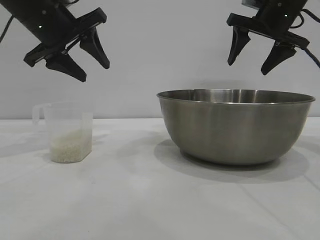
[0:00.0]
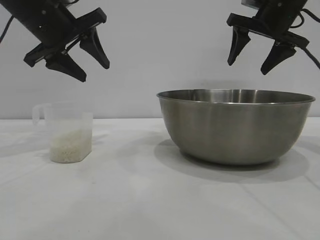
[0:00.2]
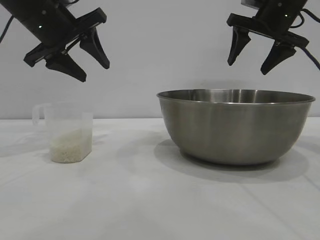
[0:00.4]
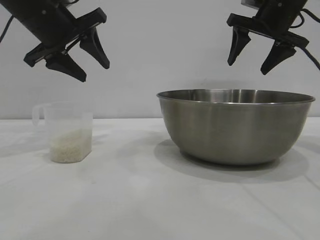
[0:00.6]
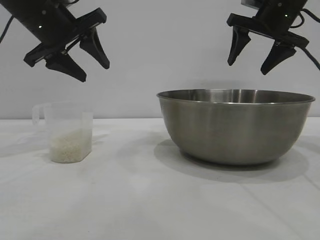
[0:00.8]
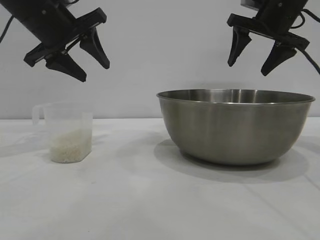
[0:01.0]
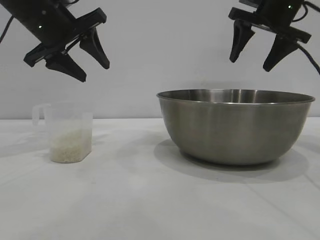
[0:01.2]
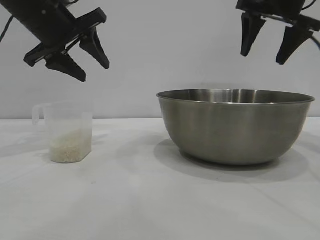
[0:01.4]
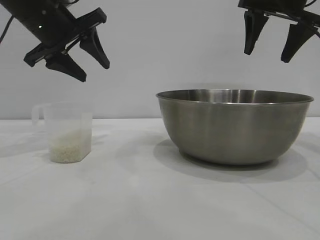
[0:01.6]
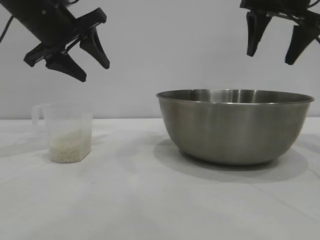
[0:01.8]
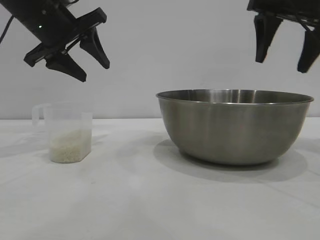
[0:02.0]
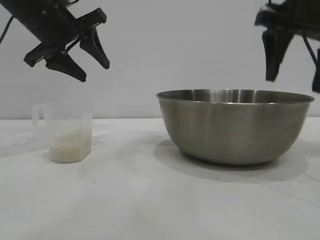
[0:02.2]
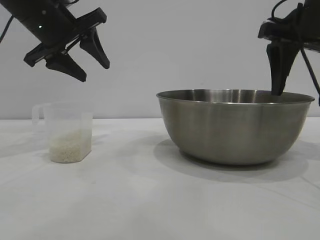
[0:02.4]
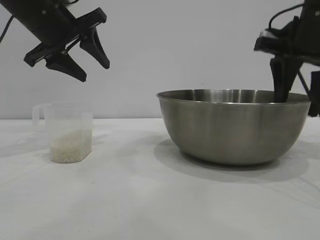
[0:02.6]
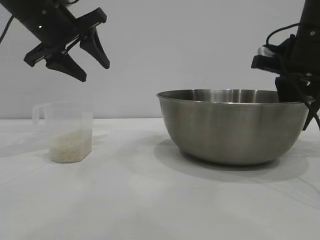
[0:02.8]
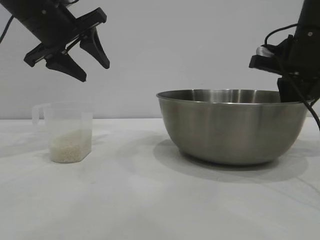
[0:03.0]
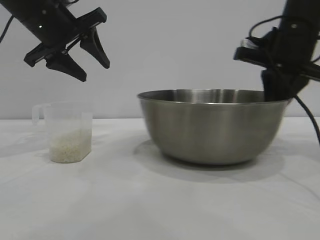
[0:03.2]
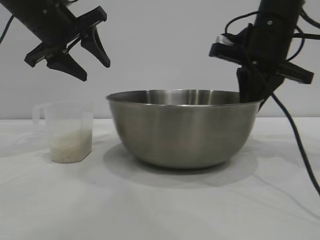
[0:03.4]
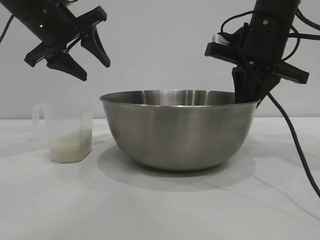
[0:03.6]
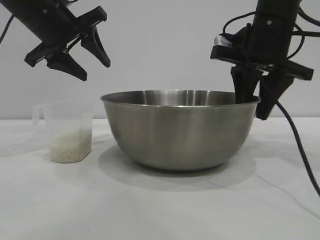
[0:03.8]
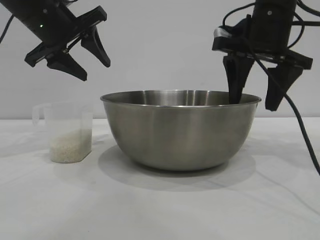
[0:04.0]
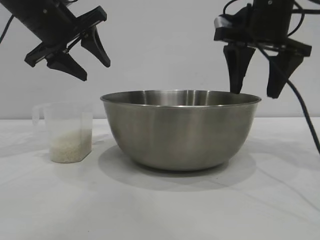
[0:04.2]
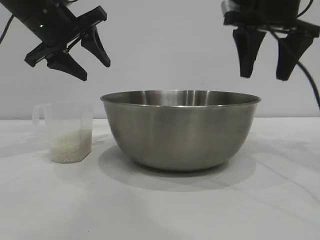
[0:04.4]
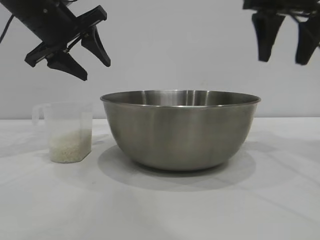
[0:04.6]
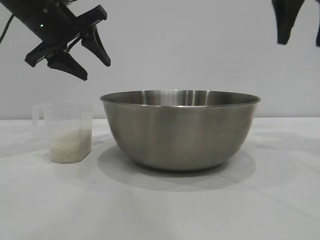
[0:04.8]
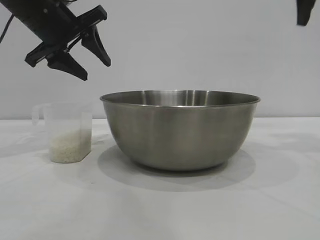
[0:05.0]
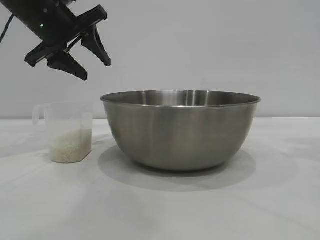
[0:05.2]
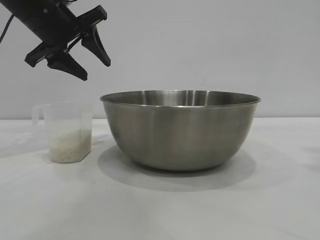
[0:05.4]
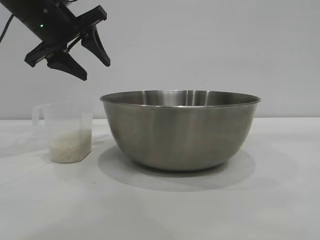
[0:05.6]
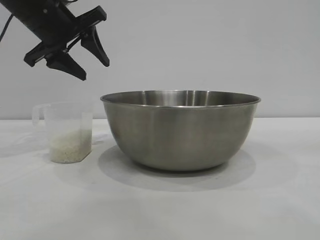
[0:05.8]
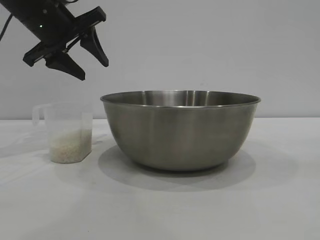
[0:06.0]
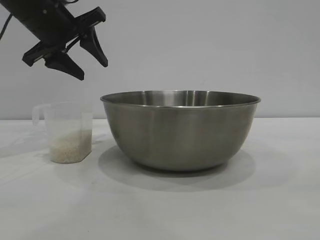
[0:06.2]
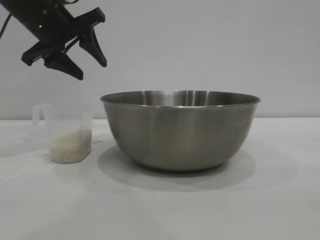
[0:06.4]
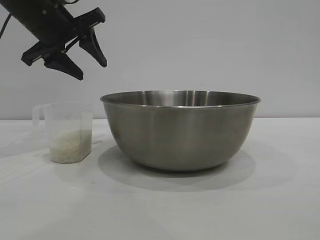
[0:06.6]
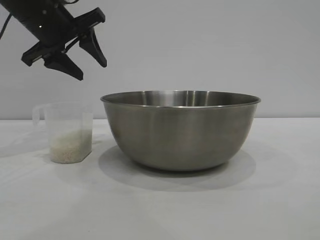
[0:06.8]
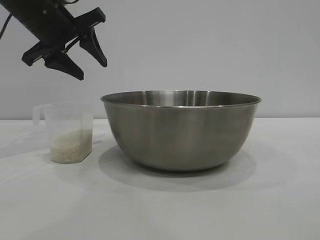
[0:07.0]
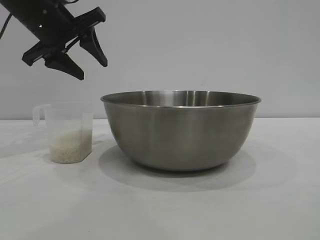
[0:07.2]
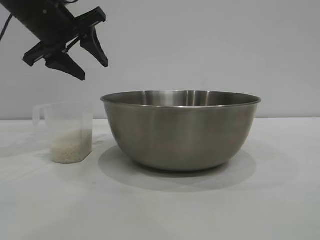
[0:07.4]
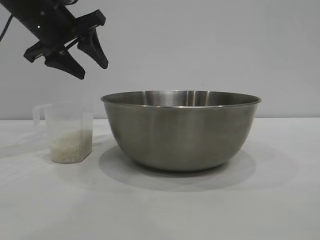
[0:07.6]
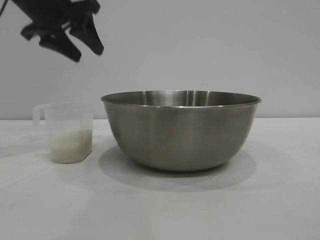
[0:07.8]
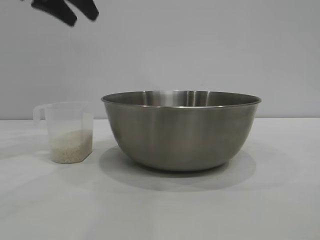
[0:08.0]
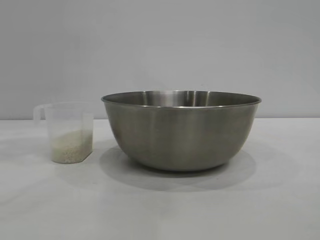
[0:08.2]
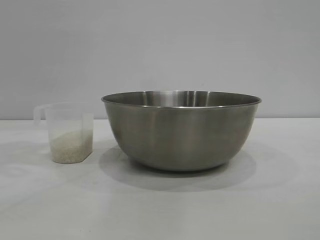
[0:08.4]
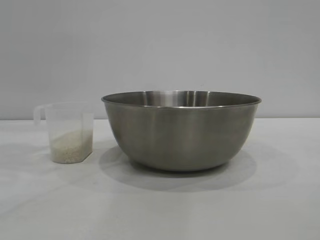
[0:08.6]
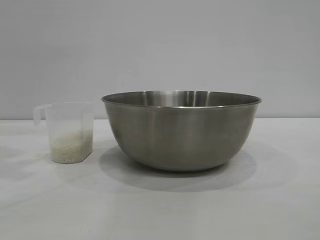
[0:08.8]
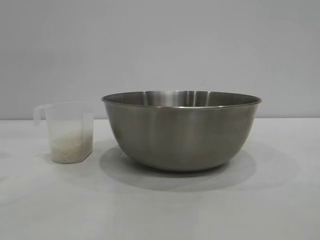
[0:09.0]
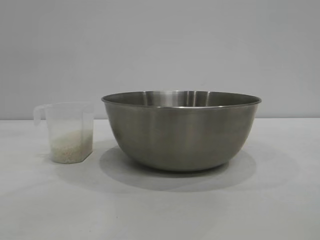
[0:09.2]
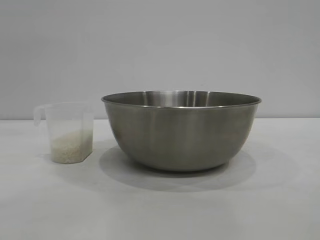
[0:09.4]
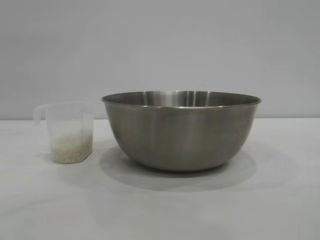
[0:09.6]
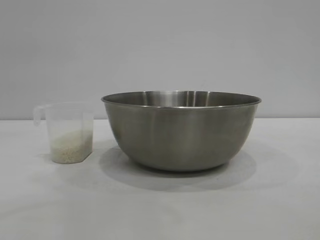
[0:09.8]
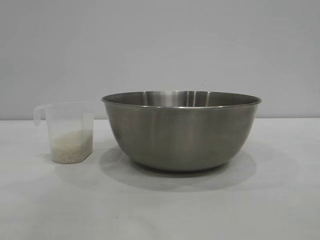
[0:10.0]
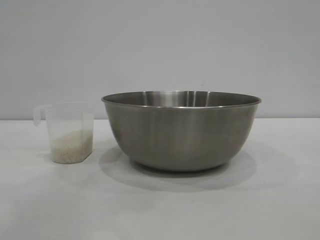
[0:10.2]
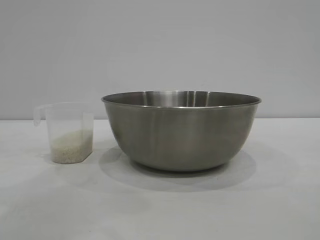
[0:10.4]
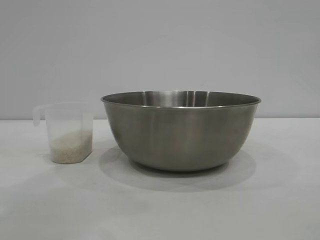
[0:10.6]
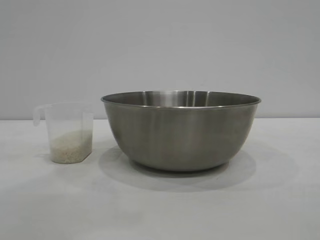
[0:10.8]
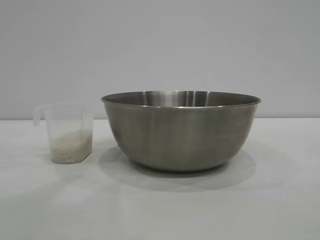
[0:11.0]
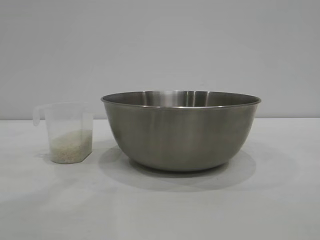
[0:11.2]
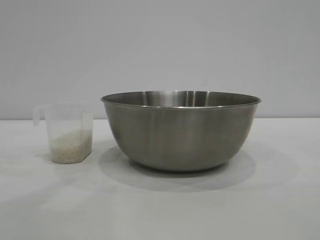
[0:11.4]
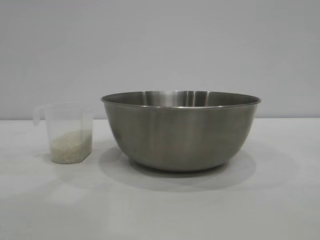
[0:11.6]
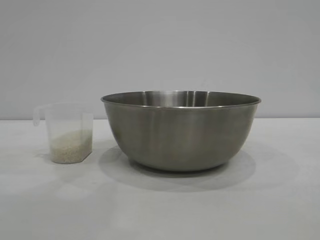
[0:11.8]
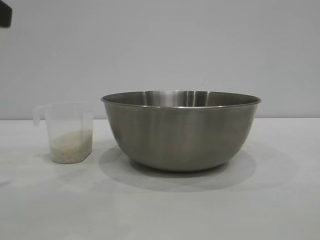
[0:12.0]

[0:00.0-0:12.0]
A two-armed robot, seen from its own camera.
Task of the whole recording: the right gripper grasp the rice container and place it in the center of the table, the left gripper grasp the rice scoop and pour the rice into the rice container.
Step, 0:00.0 to 0:04.2: Move the bowl to the center of view with the right gripper.

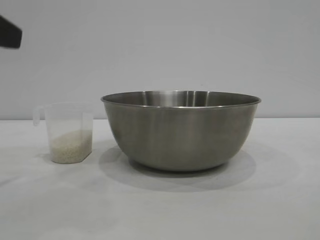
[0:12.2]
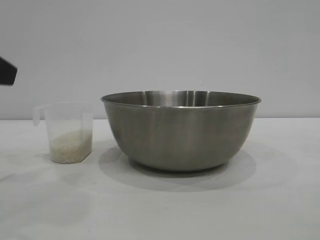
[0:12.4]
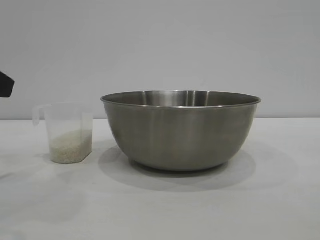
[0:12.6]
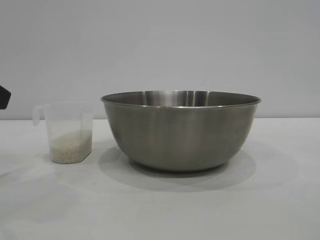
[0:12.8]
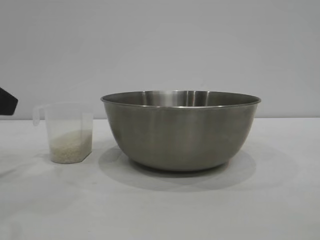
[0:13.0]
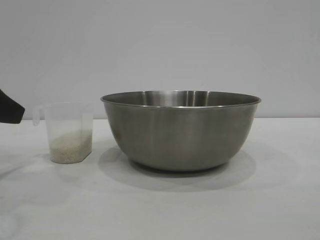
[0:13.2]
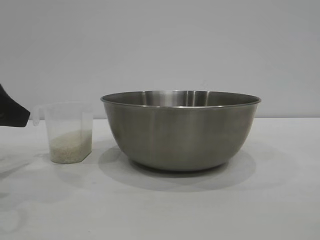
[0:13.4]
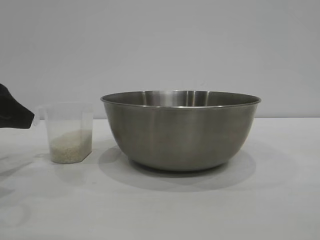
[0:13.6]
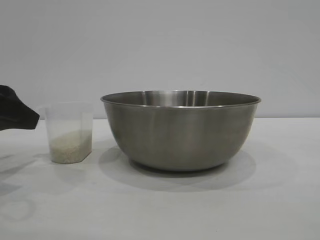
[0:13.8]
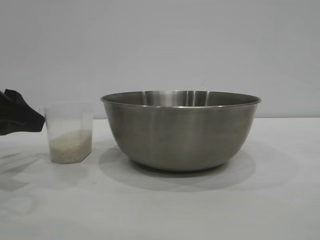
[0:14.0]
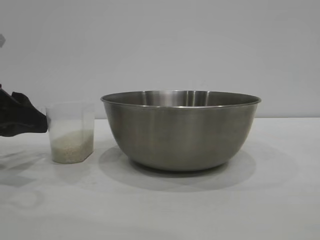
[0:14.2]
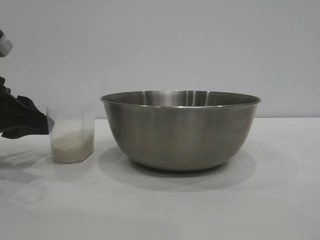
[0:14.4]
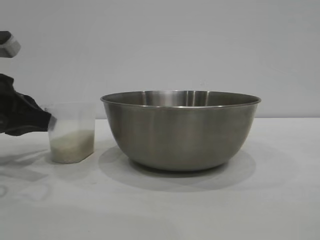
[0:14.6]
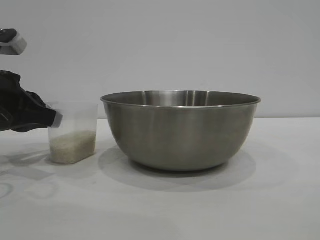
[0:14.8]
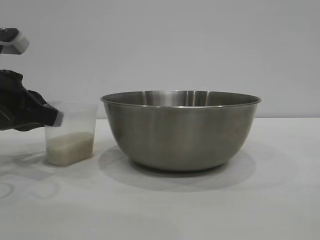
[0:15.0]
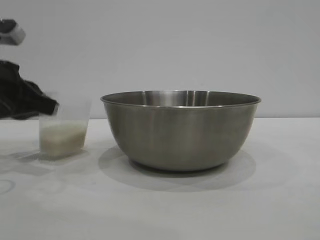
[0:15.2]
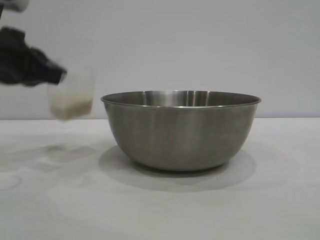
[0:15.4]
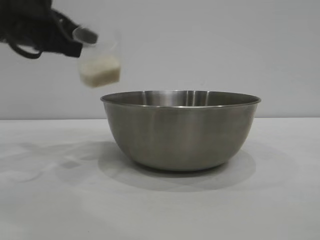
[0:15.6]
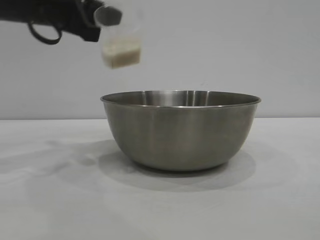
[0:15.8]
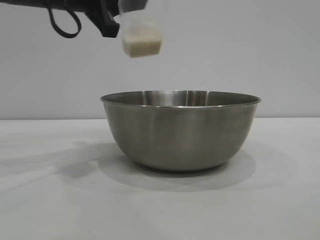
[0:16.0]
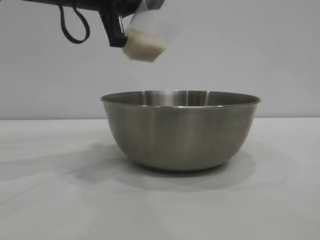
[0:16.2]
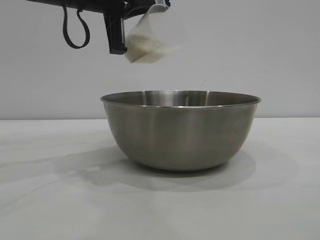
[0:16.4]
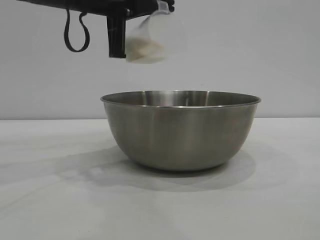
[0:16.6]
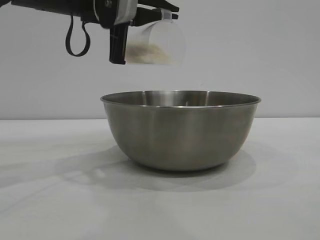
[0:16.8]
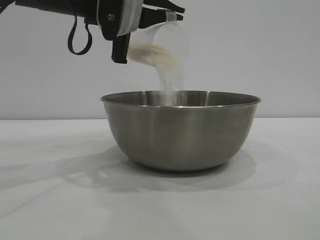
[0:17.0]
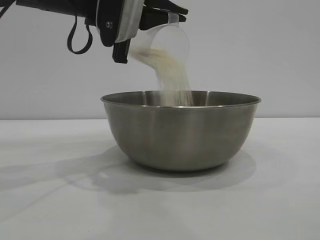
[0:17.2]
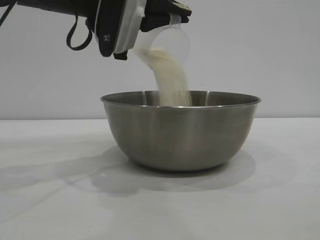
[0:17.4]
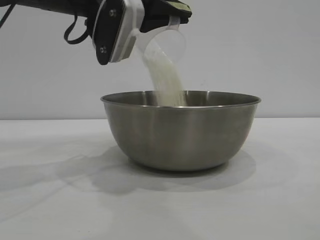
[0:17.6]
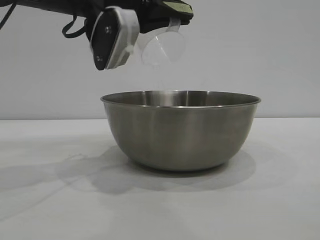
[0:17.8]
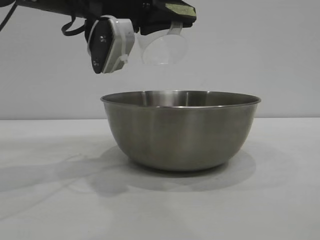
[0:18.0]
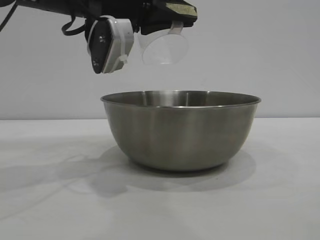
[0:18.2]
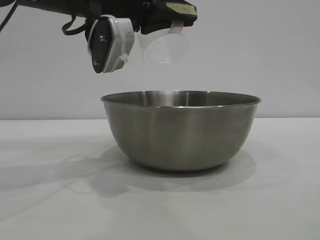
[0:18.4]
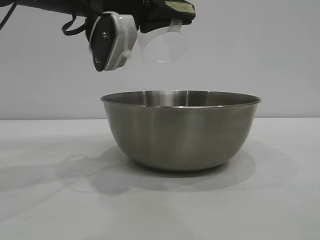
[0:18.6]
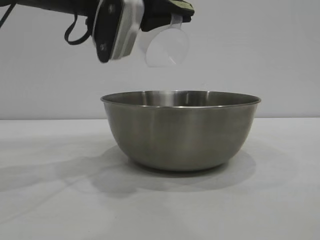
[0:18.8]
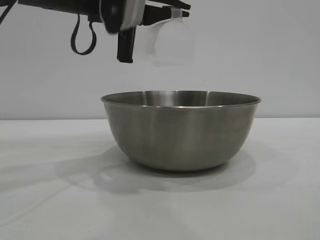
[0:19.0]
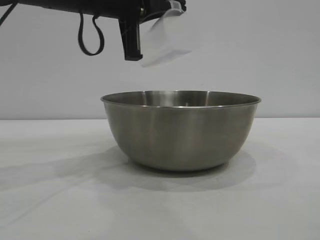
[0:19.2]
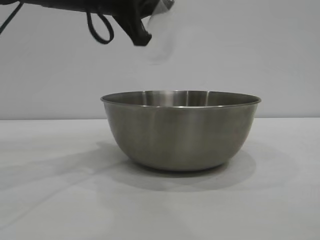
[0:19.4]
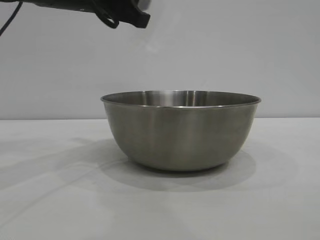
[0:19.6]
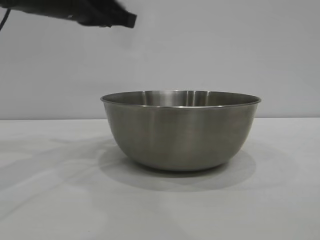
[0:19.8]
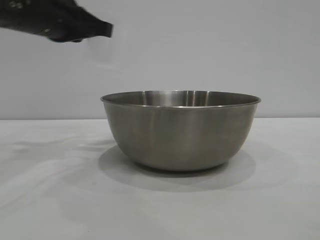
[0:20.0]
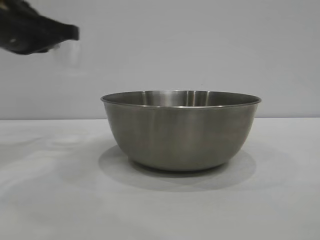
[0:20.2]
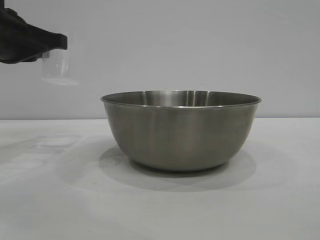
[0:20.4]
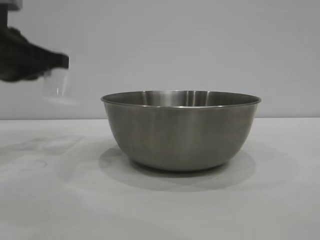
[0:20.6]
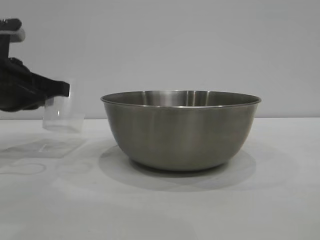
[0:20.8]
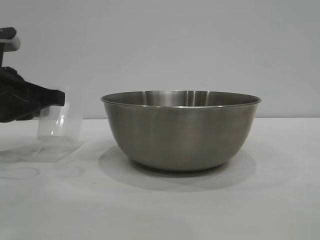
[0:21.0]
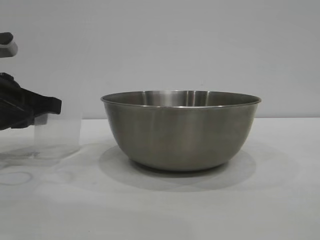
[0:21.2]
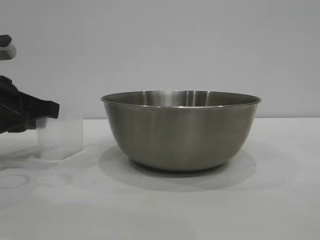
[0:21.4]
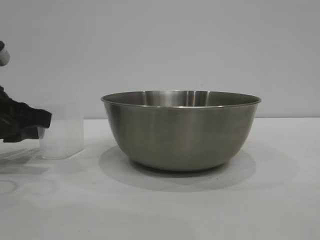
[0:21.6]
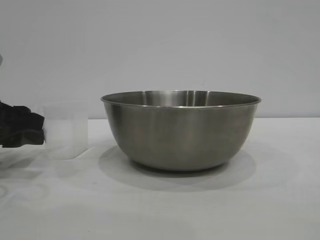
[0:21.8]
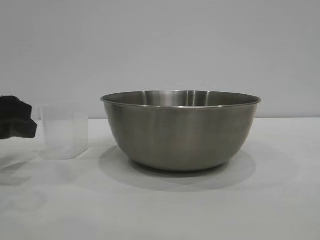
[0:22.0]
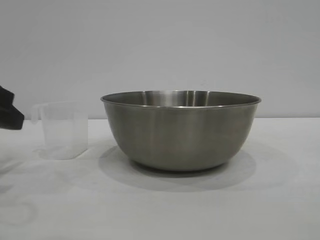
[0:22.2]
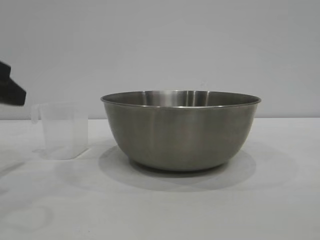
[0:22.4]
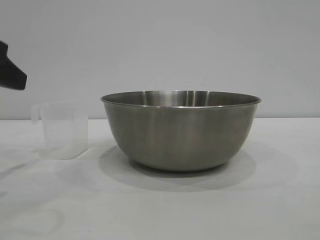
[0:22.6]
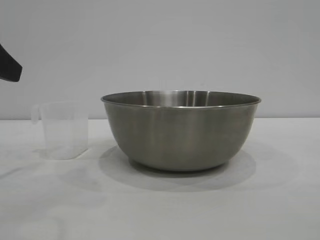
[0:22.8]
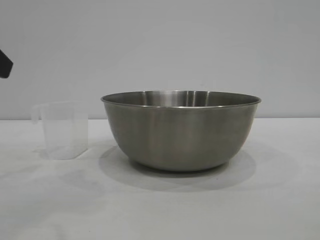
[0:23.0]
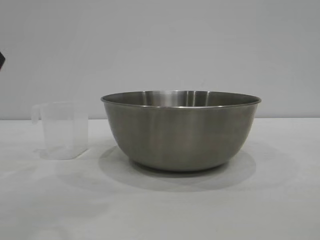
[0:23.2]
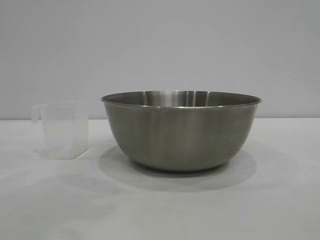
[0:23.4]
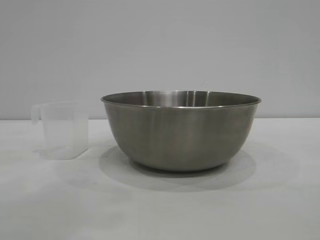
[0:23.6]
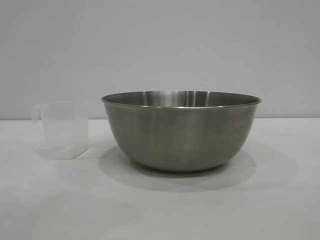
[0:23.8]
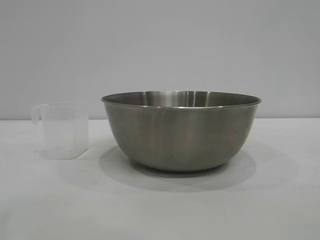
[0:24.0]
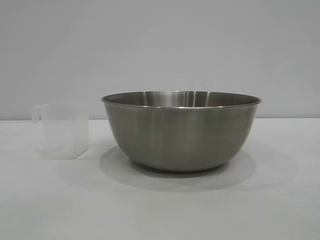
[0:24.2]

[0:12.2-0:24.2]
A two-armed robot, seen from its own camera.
Task of the whole recording: the right gripper grasp the rice container and place it in the center of the table, the left gripper grasp the rice scoop and pour the rice into the rice container.
Step, 0:12.2 to 0:15.4: Pick up the cup with rice in it with the left gripper.
Step, 0:15.6 to 0:19.0: Pour the rice from the cup into the bowl with the left gripper.
Step, 0:19.2 to 0:22.2: Place the cup on the table with the left gripper.
